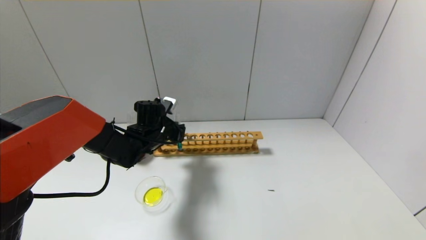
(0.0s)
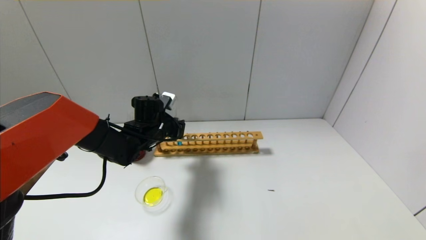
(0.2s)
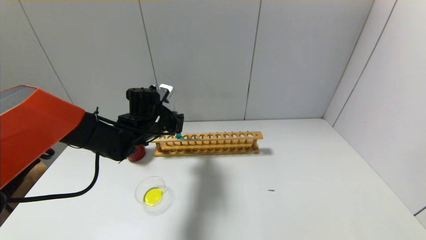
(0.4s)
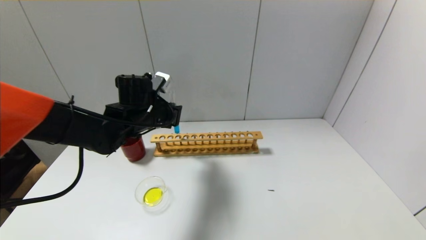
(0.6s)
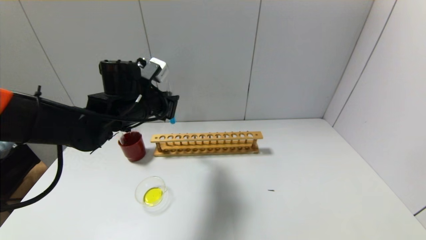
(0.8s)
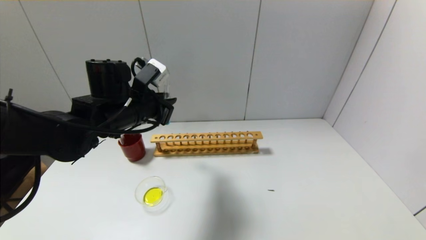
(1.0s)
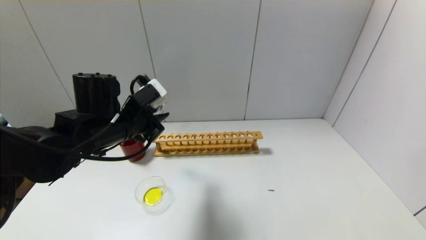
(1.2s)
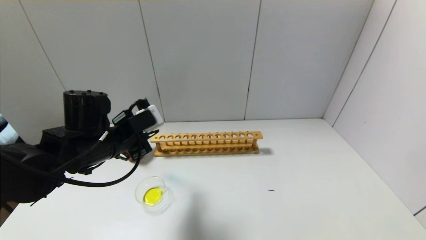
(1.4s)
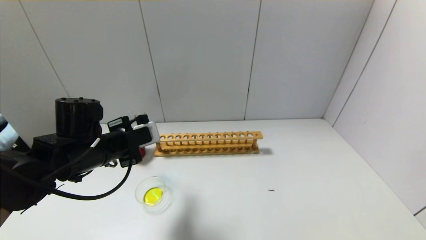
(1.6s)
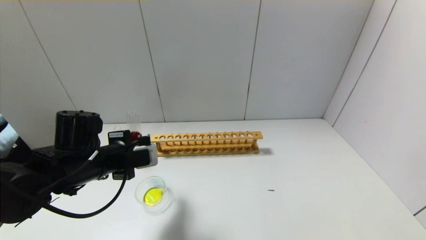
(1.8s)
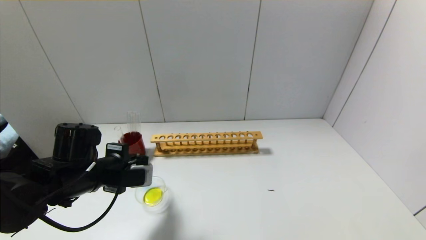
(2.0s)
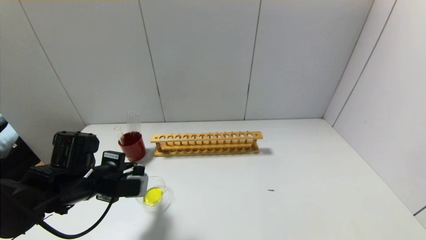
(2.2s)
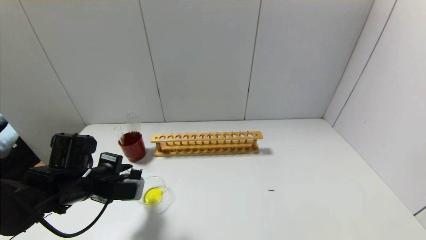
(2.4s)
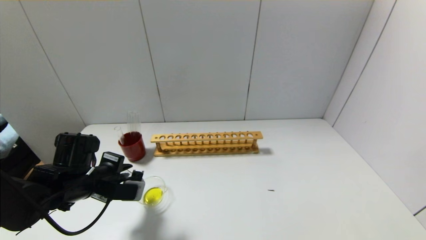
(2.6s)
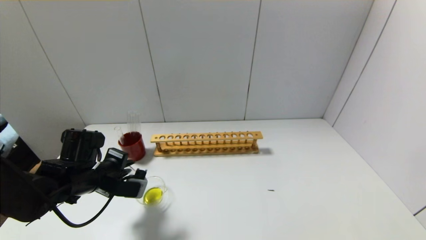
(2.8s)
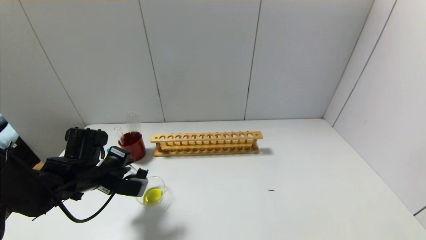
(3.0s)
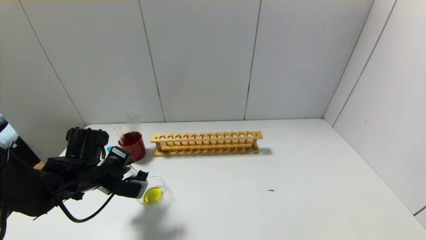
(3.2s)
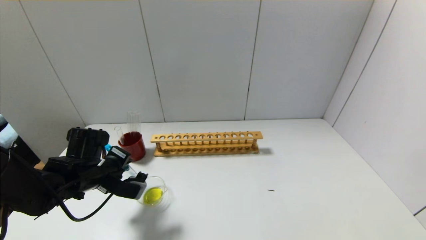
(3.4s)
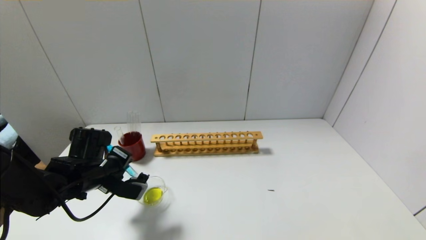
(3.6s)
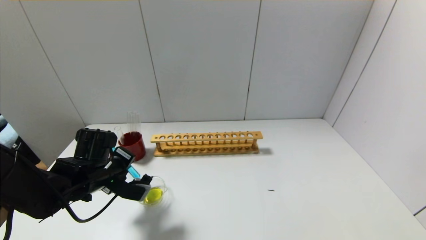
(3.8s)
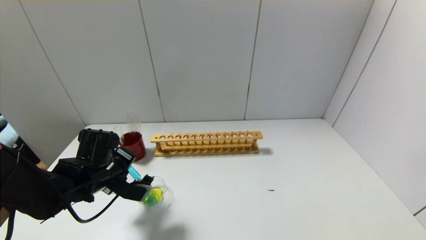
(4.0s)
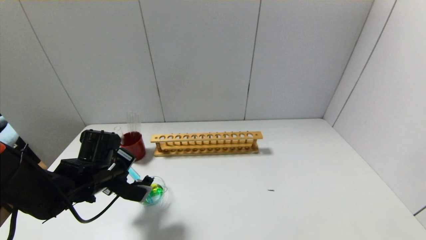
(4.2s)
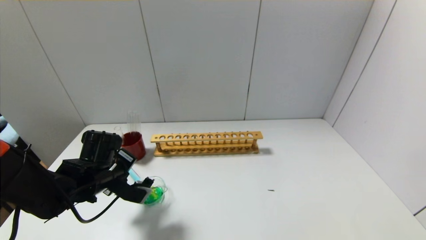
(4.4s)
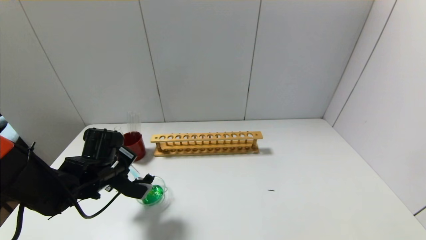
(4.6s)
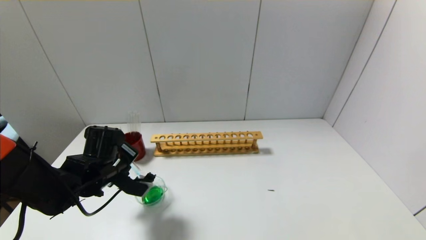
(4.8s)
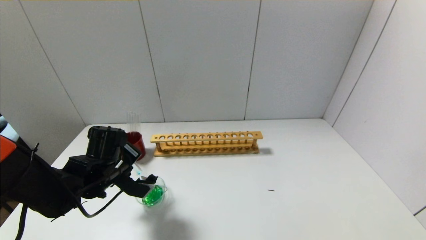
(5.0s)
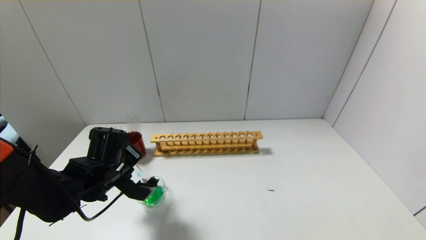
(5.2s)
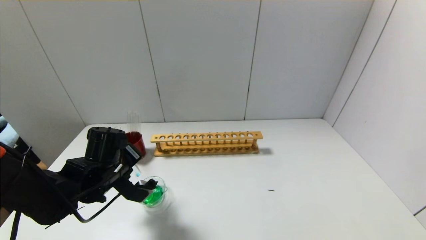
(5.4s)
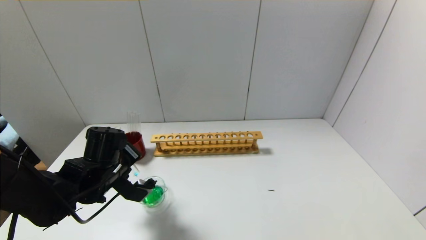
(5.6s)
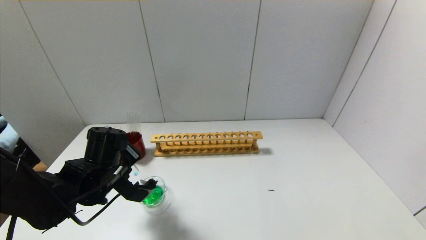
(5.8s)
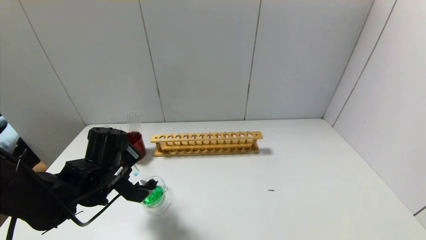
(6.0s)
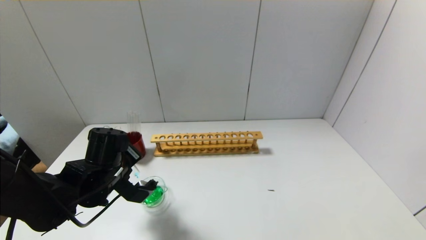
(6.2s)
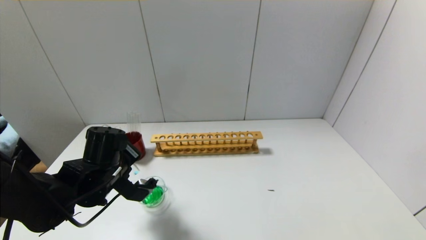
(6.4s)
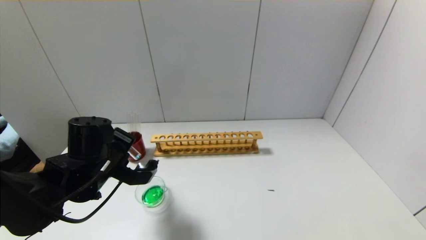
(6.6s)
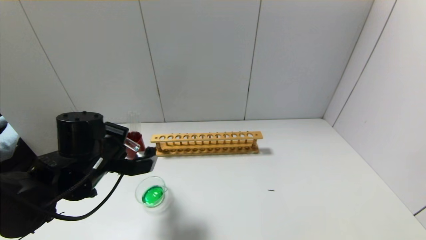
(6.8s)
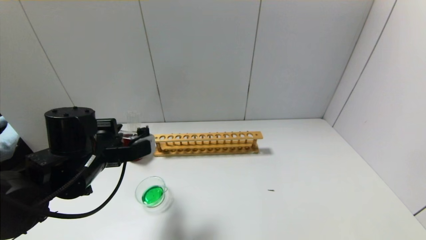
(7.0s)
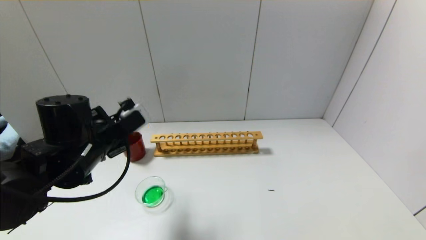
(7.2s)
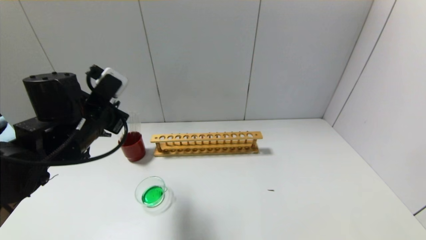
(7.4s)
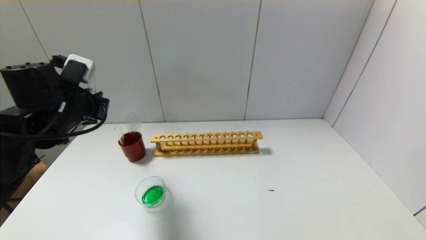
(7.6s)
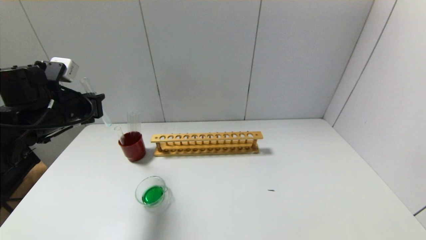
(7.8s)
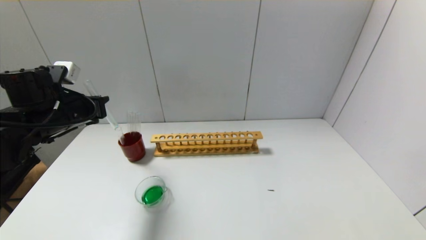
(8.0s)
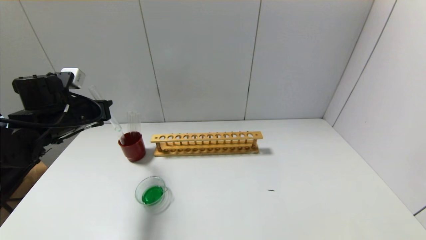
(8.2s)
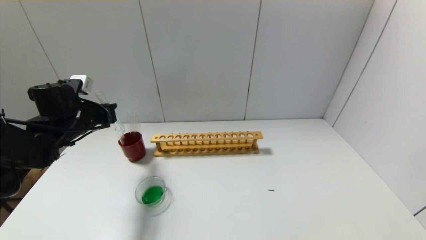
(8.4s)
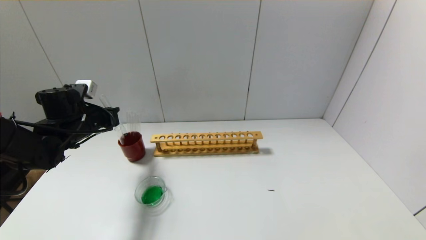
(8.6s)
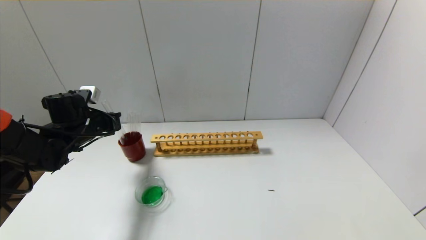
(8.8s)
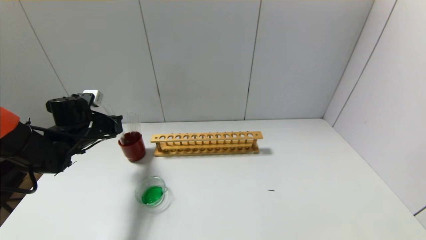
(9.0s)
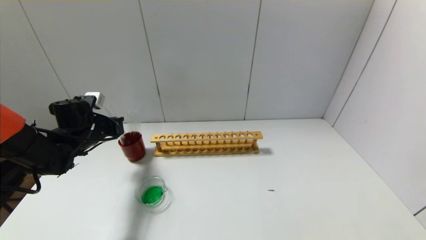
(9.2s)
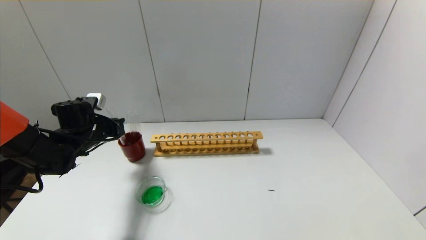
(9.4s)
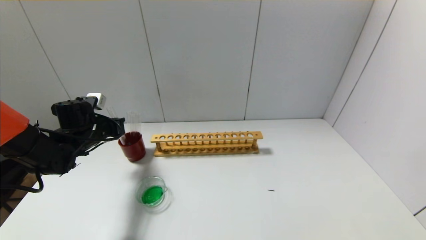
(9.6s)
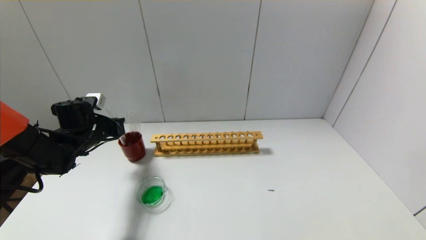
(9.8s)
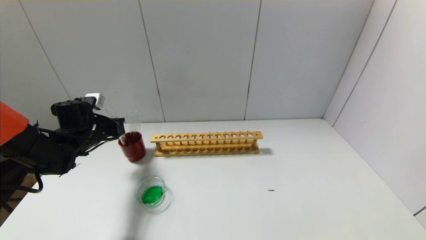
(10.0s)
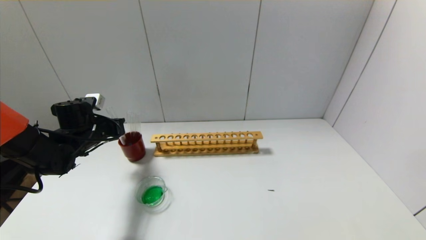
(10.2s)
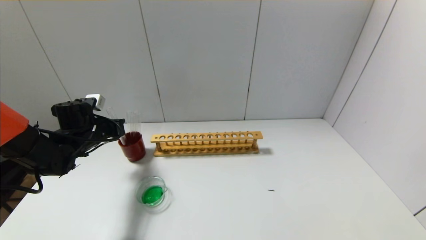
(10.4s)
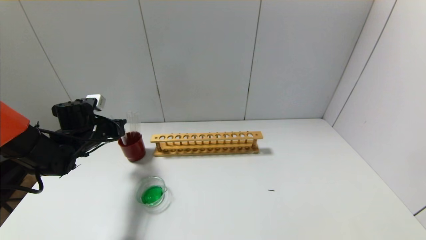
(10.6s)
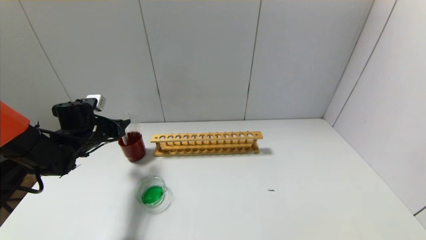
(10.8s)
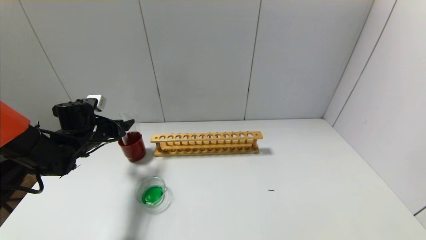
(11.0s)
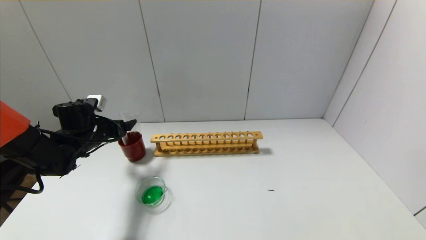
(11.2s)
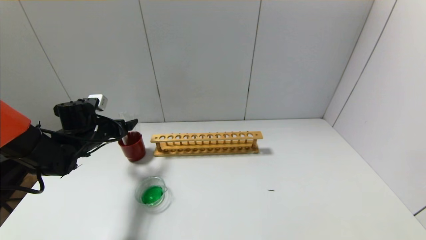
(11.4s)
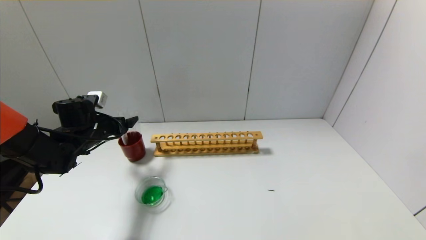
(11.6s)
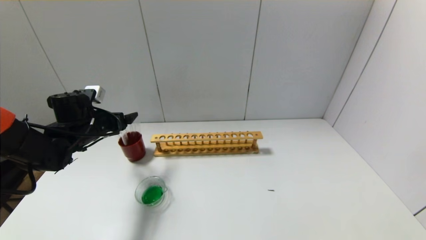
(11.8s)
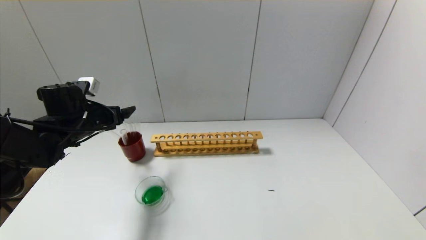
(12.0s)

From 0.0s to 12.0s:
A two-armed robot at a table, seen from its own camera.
Step, from 0.0s to 6.6s: Pour the blue reagent into the graduated cylinder with the left gripper.
Step, from 6.8s to 10.6s: Place the test tube into the brown cup with the left gripper.
From 0.0s to 1.6s: The left gripper is displaced backward, upward and to the left by approximately 15 cm.
From 1.6s to 3.0s: The left gripper travels downward by about 5 cm.
From 3.0s to 4.4s: The grippers move only a little.
From 4.4s to 6.0s: There are only small adjustments of the grippers.
From 6.0s to 7.6s: The left gripper goes roughly 15 cm upward and to the left.
From 7.6s to 9.0s: The left gripper goes roughly 10 cm downward and forward.
From 9.0s to 10.4s: Both grippers stay about where they are.
From 10.4s to 12.0s: The left gripper is displaced upward by roughly 5 cm, and opens.

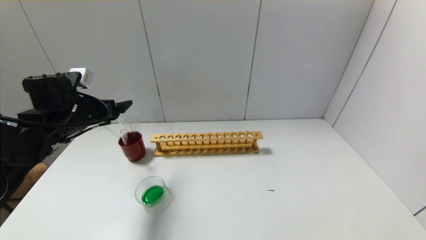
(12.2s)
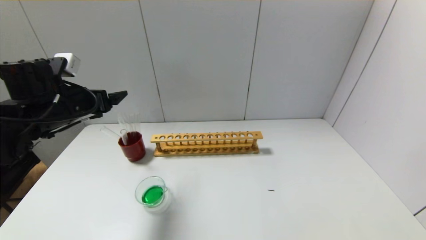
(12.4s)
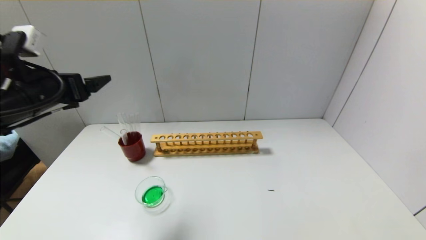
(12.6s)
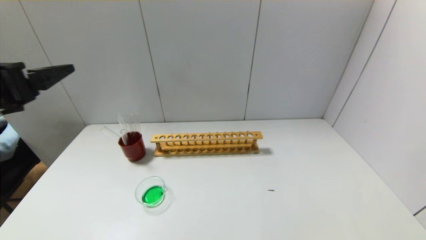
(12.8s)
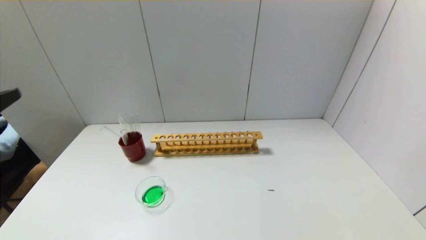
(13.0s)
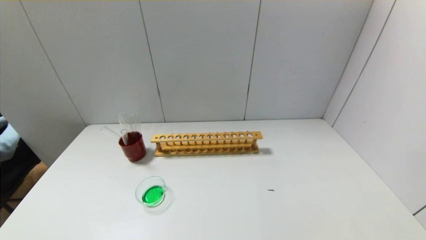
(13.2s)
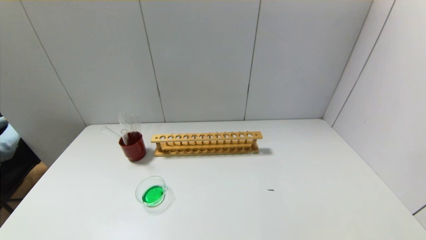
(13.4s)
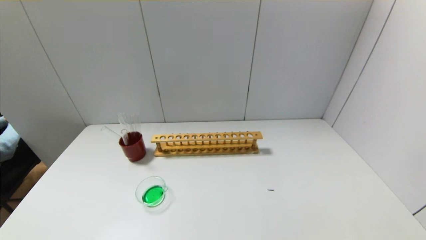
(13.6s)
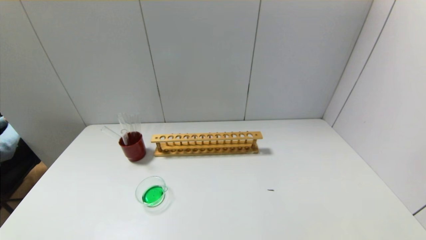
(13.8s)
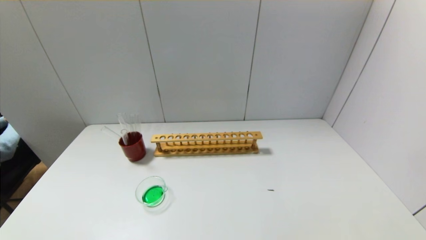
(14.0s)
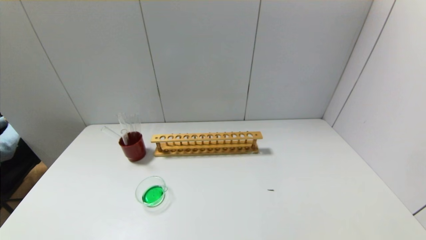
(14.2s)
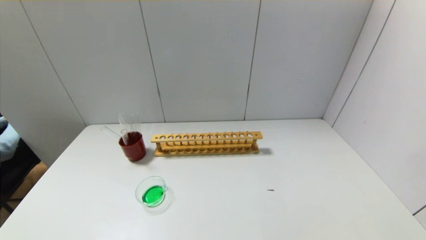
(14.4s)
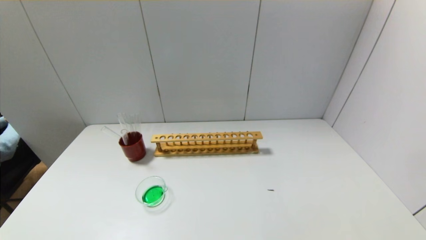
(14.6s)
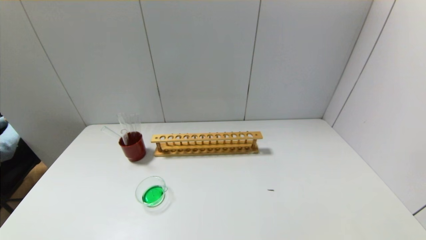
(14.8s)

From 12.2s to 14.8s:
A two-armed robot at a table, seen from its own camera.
From 12.2s to 13.4s: The left gripper is displaced backward by approximately 40 cm.

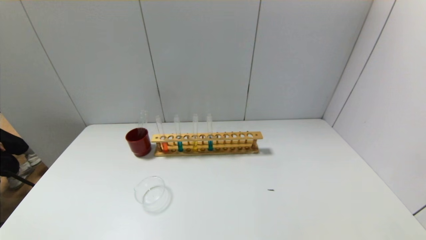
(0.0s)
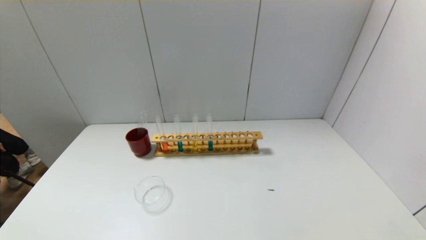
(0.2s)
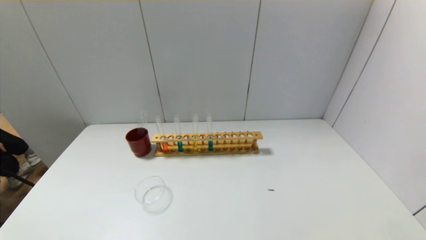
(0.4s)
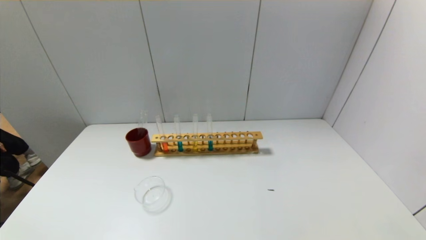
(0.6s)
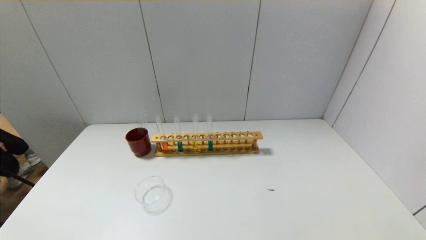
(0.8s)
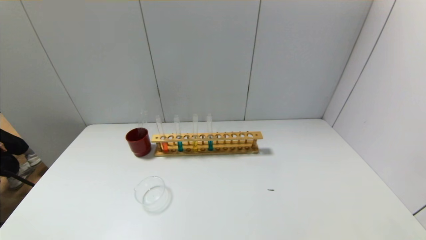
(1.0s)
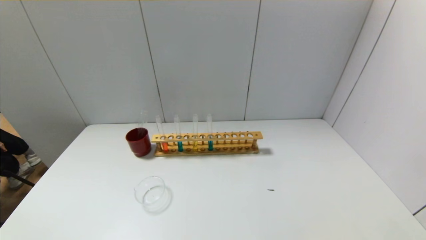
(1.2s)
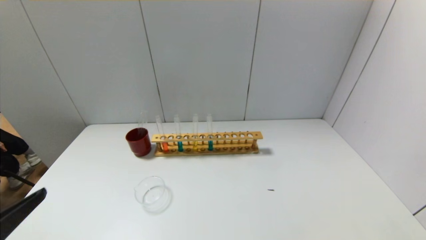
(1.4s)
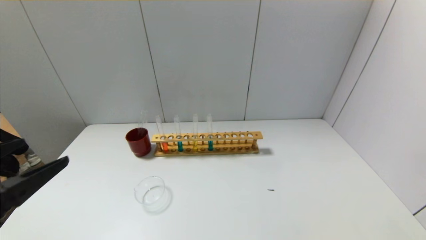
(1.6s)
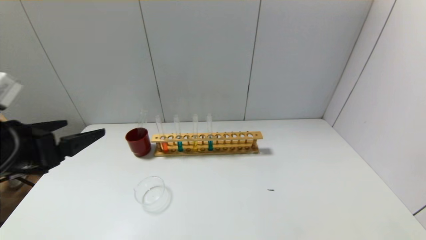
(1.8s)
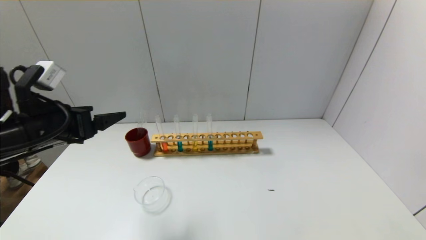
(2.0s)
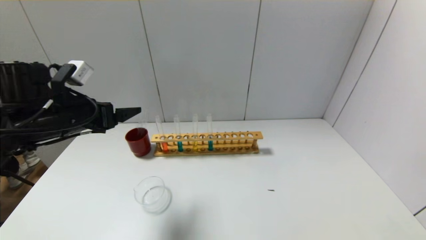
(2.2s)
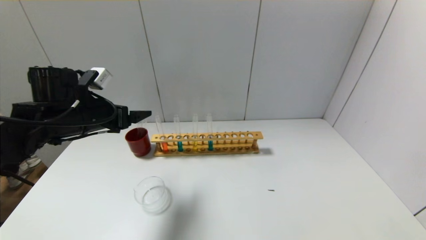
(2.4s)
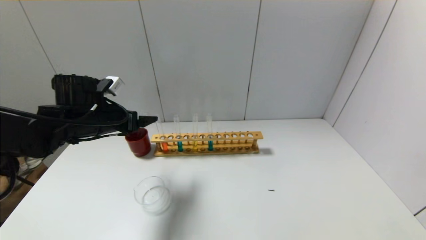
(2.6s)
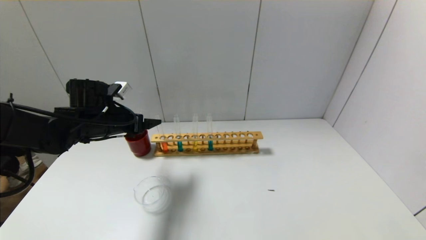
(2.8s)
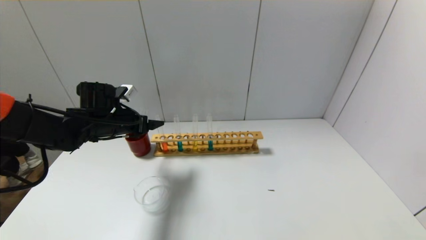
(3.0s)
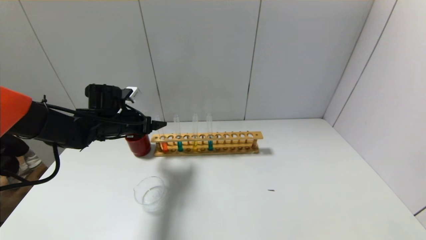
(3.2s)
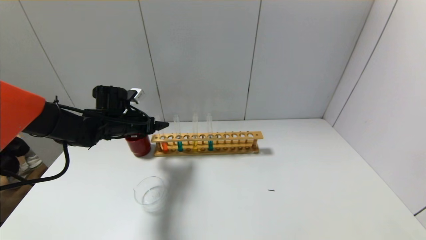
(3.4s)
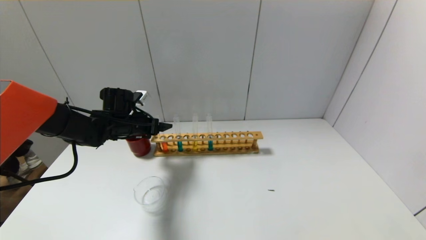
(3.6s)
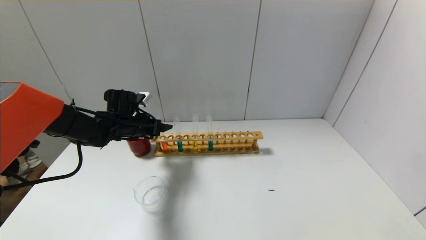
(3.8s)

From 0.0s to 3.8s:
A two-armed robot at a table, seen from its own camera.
From 1.2s to 2.6s: The left gripper moves forward, approximately 35 cm.
From 2.6s to 3.8s: The left gripper is displaced forward and downward by approximately 10 cm.
